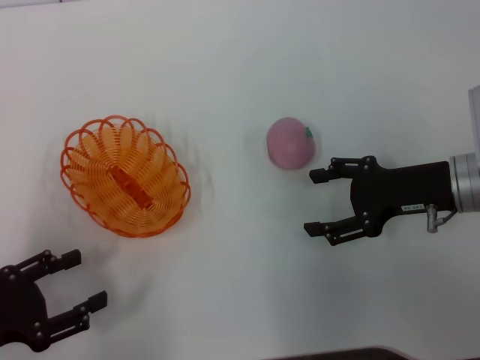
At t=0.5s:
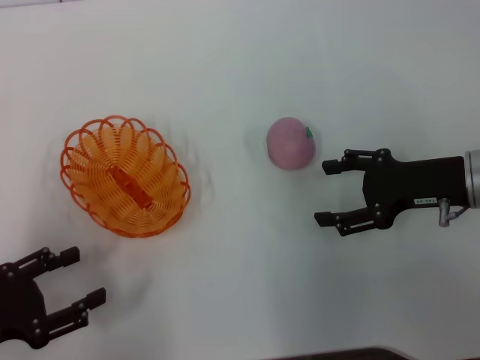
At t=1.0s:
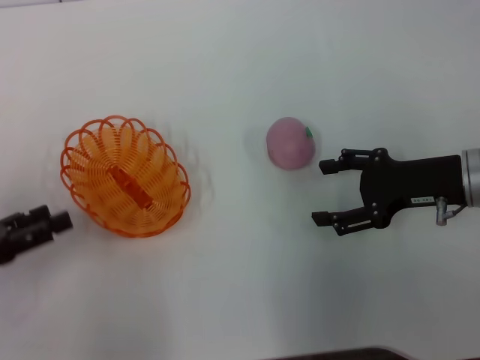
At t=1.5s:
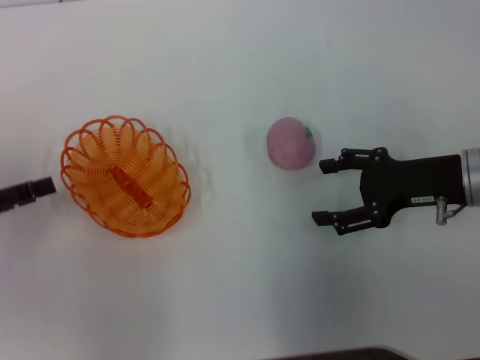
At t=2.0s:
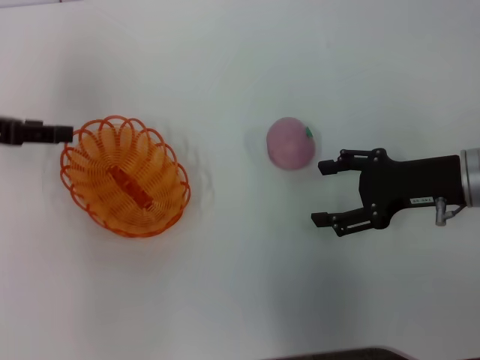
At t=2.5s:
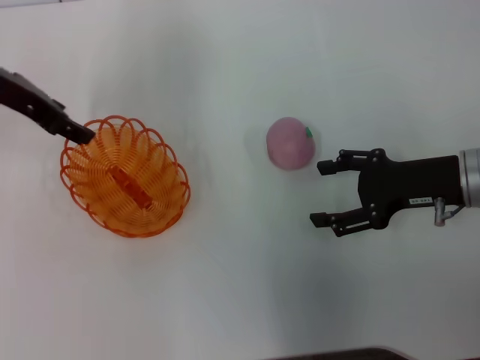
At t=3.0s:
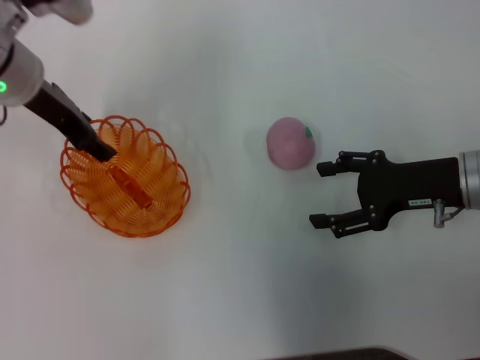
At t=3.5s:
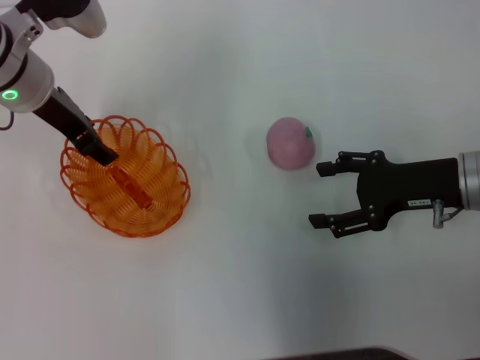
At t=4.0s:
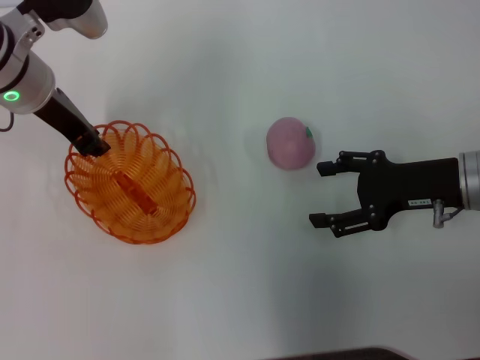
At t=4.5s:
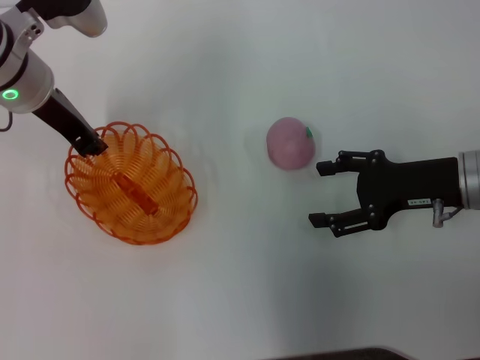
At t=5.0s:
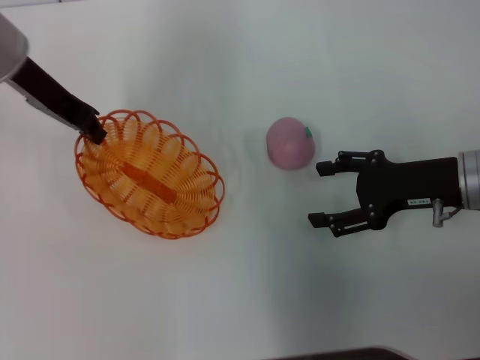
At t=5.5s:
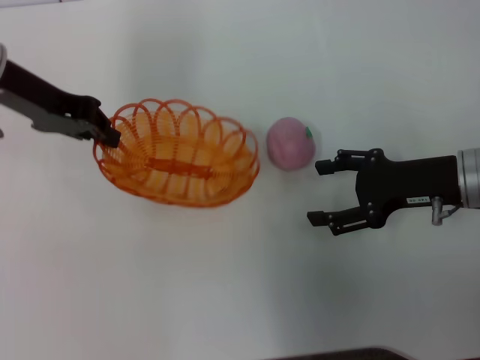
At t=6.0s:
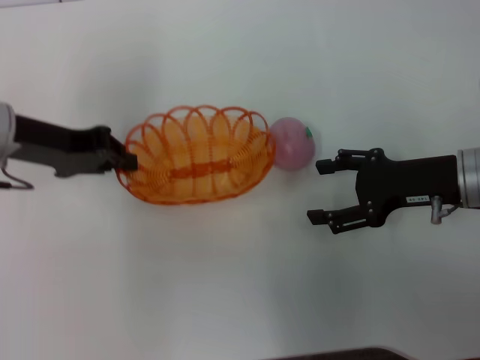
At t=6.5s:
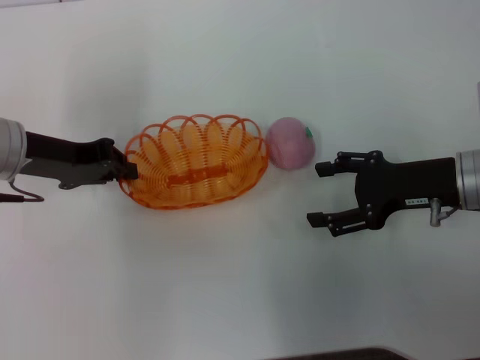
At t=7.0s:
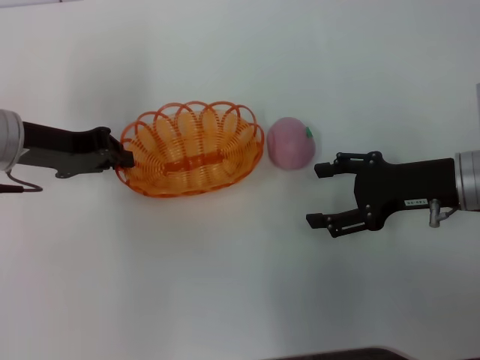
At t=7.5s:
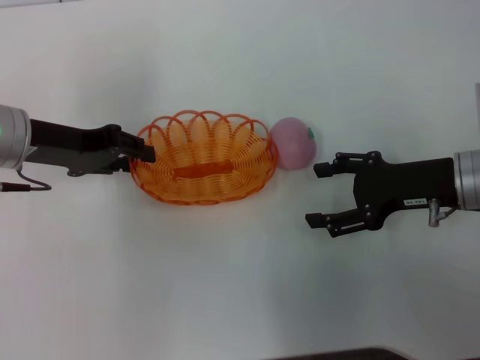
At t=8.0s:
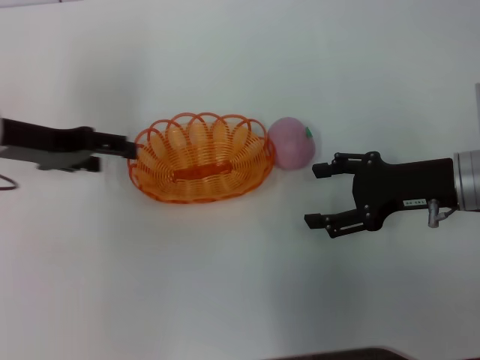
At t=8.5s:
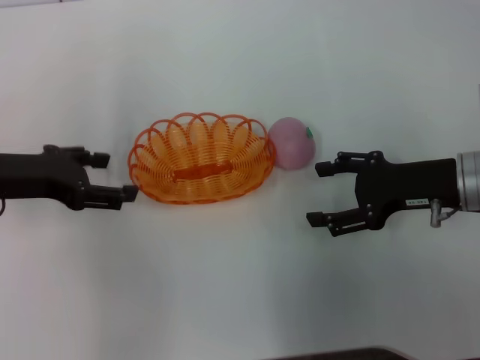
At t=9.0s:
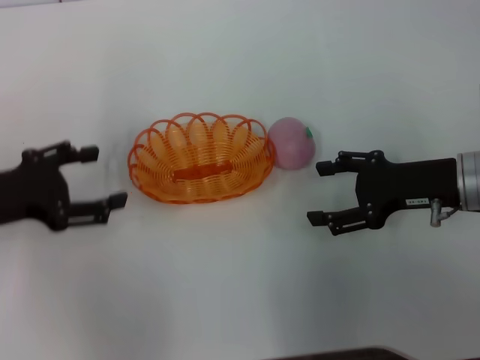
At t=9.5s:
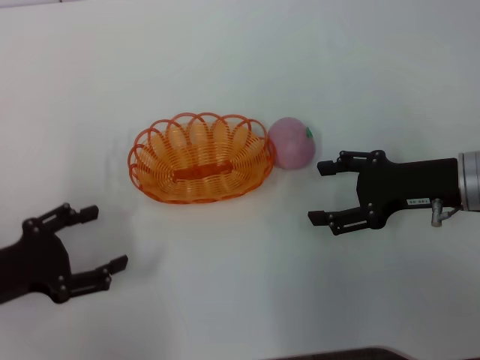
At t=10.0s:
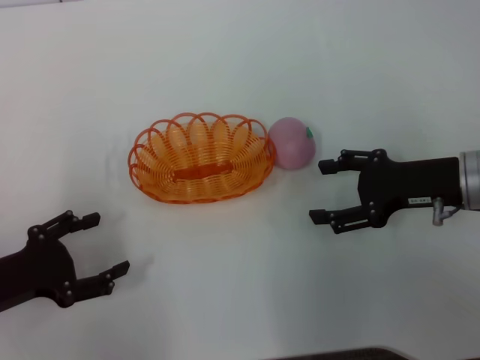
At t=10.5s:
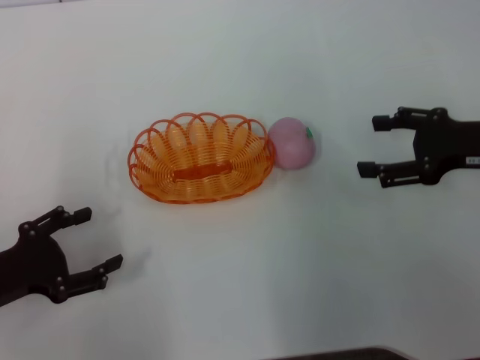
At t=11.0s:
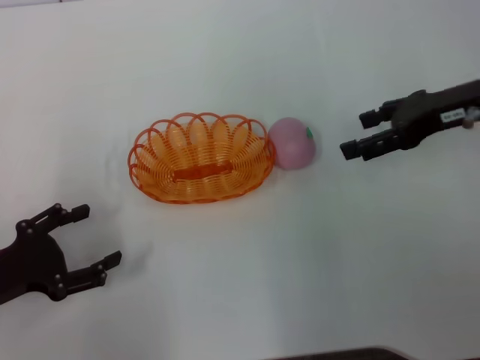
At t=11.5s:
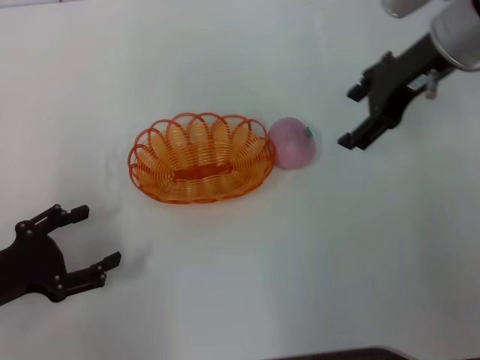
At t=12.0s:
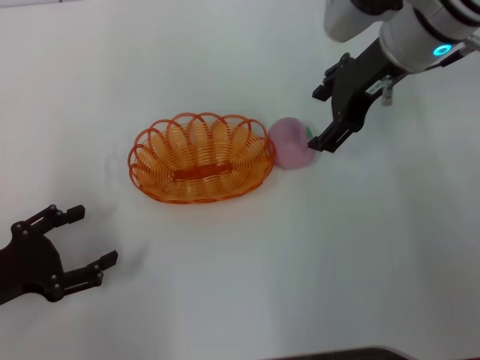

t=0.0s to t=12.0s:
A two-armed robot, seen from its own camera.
Step, t=0.0s to t=5.0s: Pick up the basket with the left gripper.
Step, t=5.5s to t=9.5s: Place the basket in the center of view with the left gripper.
t=0.0s to t=2.0s: The left gripper goes roughly 20 cm forward and upward.
t=2.0s to t=4.0s: The left gripper shifts some 15 cm to the right and forward.
t=4.0s to t=6.0s: The left gripper shifts some 5 cm to the left, and closes up.
t=6.0s to t=8.0s: The left gripper opens its fingers.
t=8.0s to t=10.0s: The left gripper travels backward and downward by approximately 15 cm.
t=10.0s to t=12.0s: The right gripper is displaced upward, forward and to the left by approximately 20 cm.

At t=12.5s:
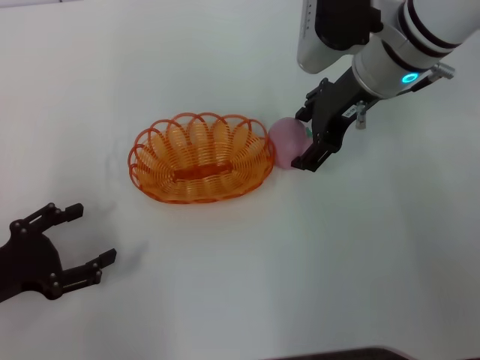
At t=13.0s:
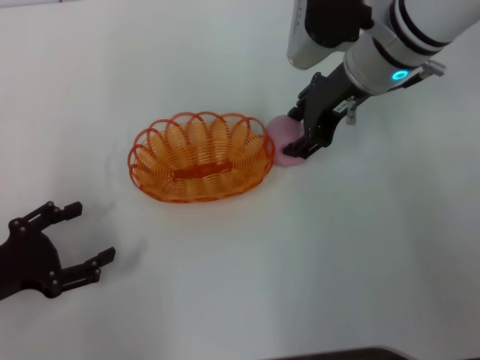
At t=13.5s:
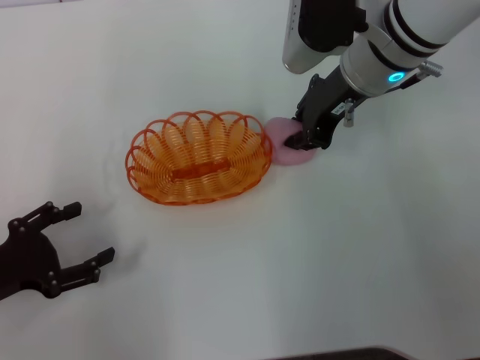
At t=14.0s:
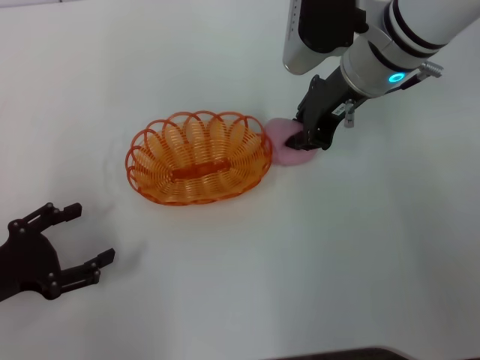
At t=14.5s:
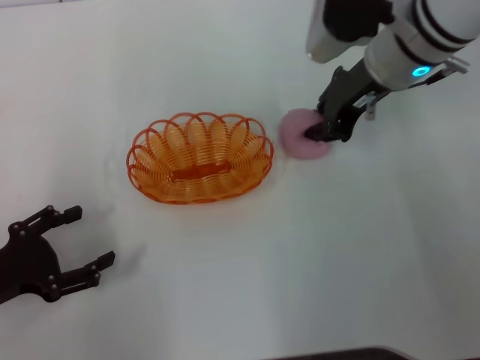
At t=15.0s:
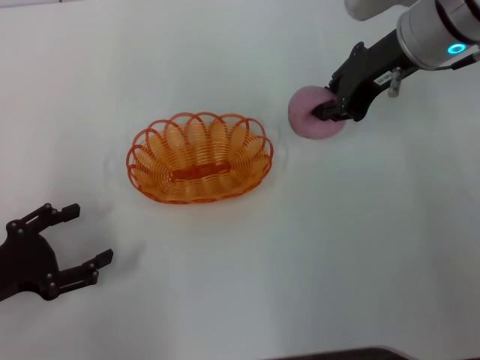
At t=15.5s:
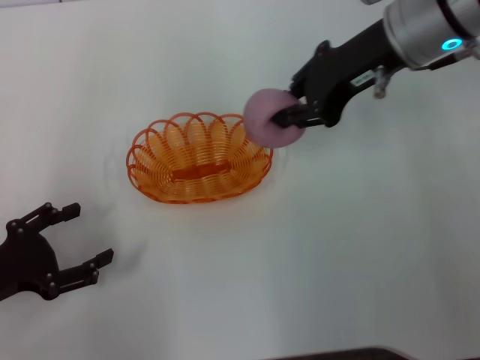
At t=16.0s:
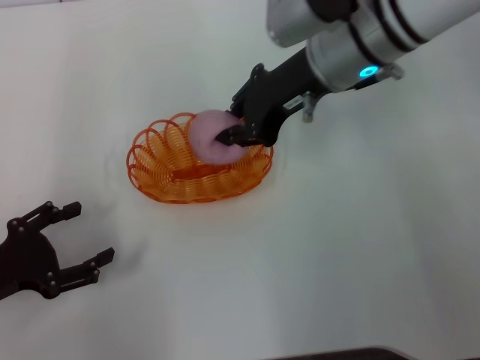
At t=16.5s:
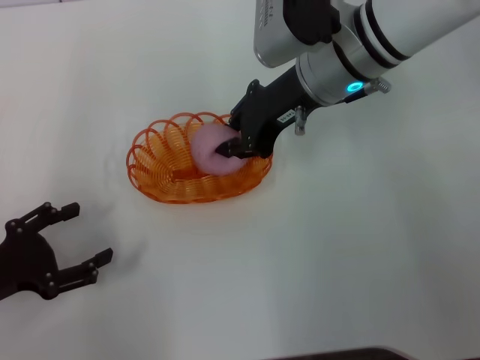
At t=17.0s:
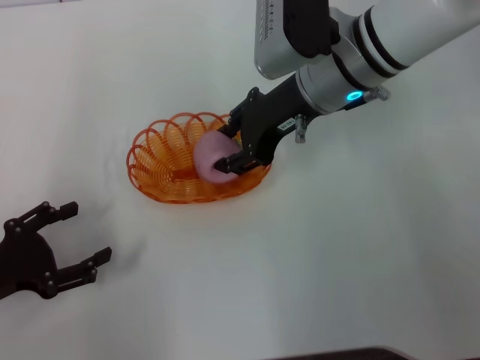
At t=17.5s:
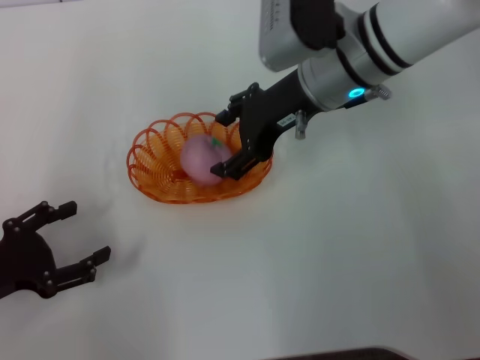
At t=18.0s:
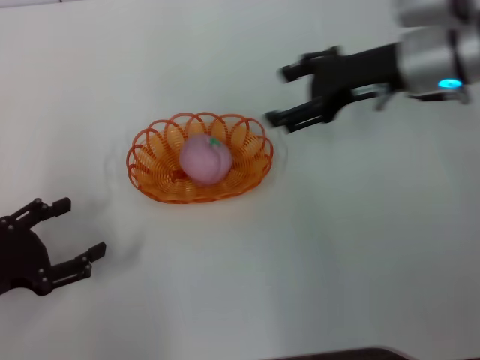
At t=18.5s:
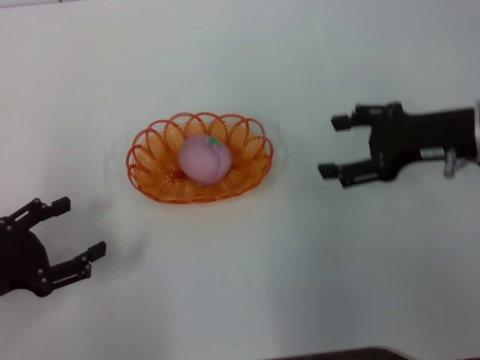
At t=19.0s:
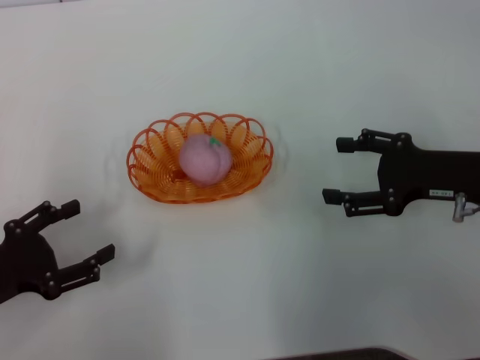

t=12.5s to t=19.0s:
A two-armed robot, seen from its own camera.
Step, t=12.5s to t=15.0s: Pick up the peach with the right gripper.
Step, t=15.5s to t=18.0s: Place the peach into the basket with the right gripper.
t=12.5s to t=14.5s: The right gripper closes its fingers.
t=14.5s to t=17.0s: The right gripper heads to the left, covering roughly 5 cm.
t=17.0s to t=19.0s: The right gripper heads to the right, backward and downward, covering some 20 cm, and opens up.

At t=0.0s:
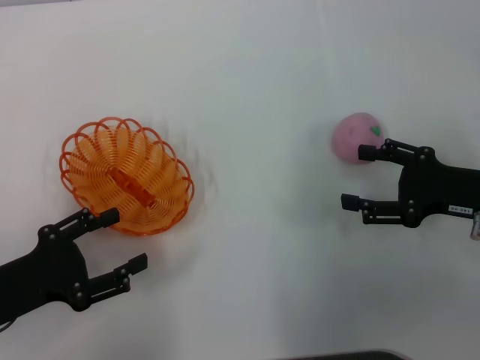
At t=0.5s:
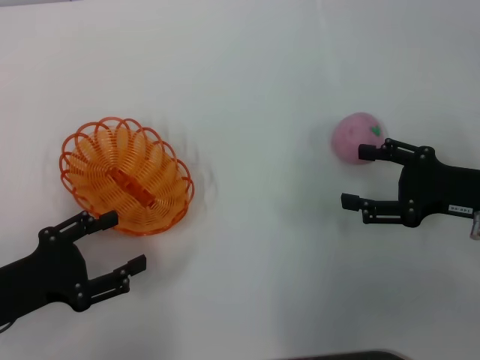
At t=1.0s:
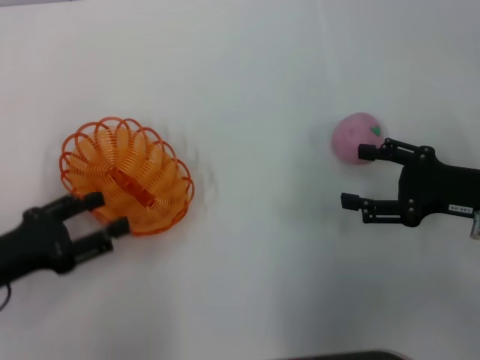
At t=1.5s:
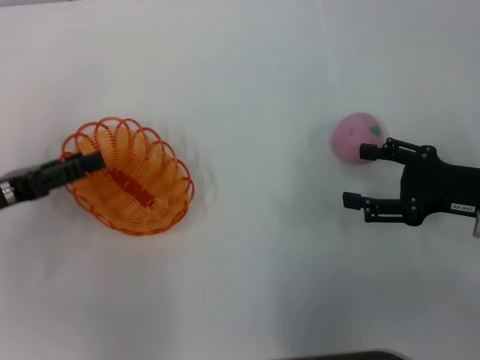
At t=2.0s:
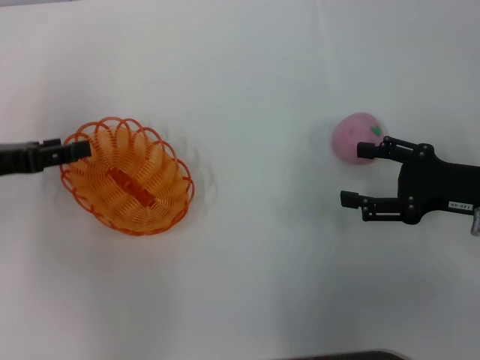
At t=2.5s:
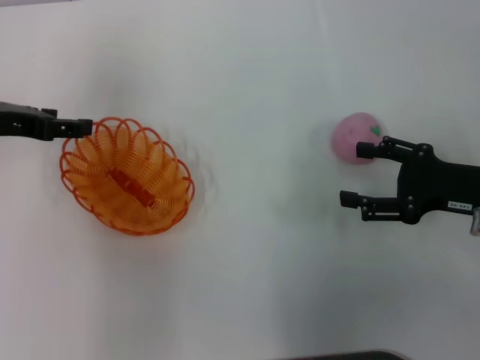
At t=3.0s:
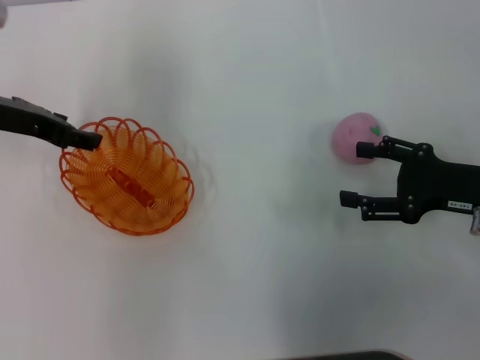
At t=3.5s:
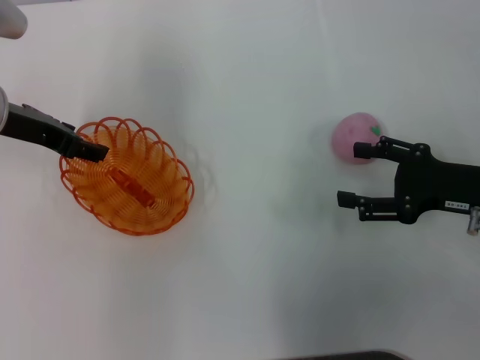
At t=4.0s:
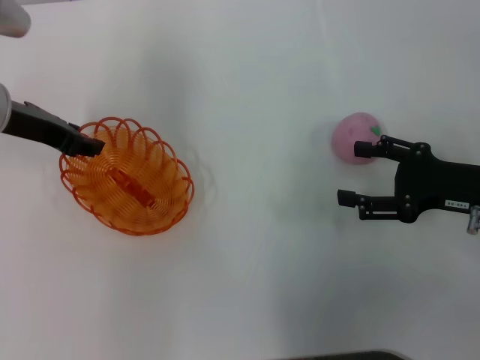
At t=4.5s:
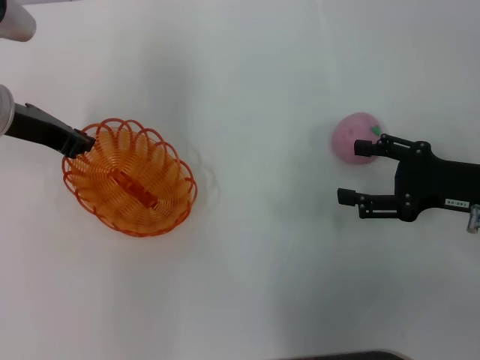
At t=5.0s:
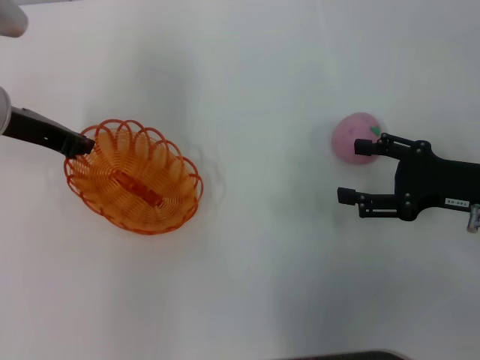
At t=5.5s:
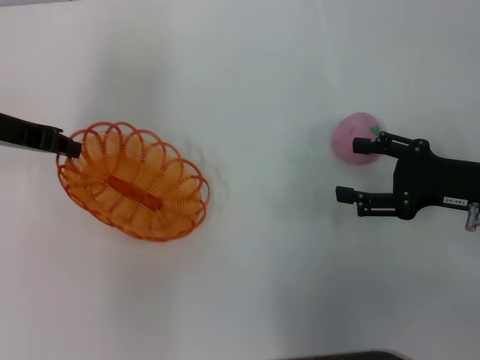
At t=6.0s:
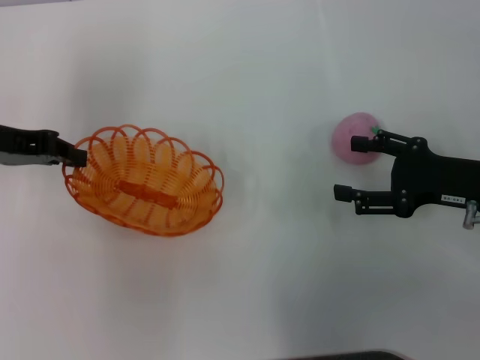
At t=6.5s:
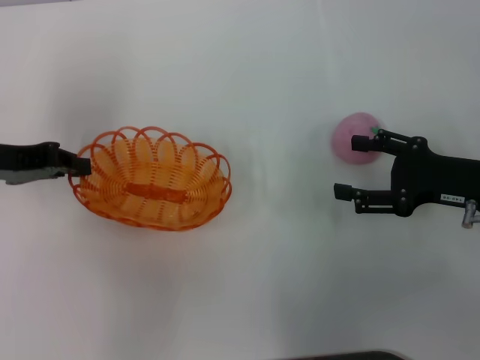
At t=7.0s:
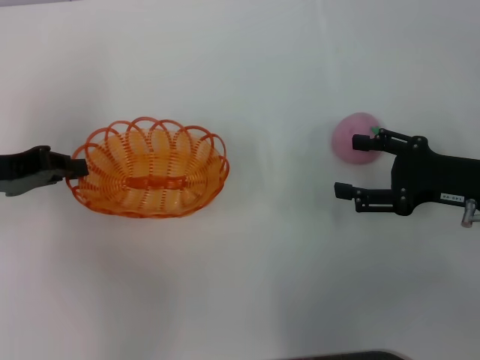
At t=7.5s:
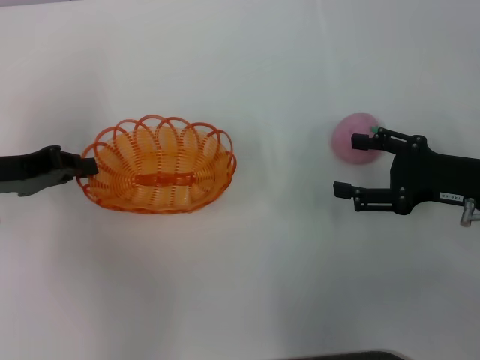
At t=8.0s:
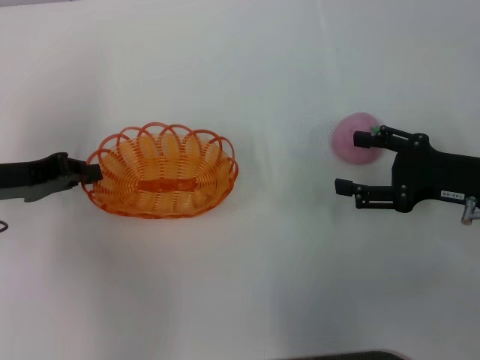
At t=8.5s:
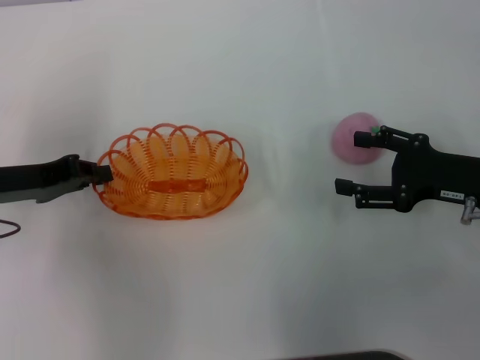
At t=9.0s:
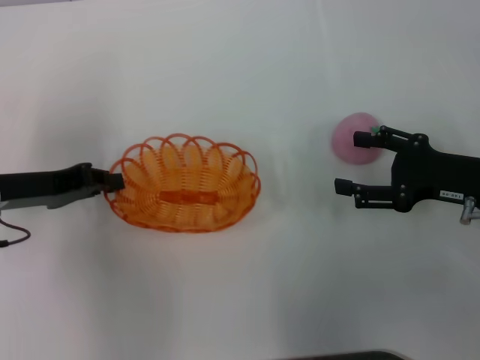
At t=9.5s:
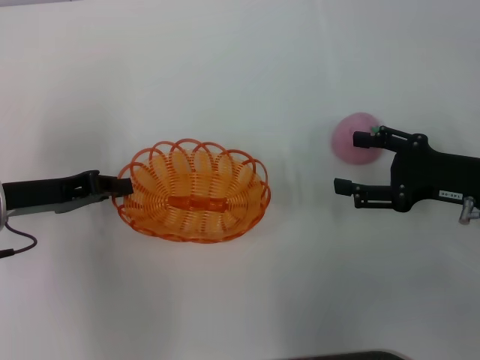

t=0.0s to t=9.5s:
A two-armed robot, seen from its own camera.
Step, t=0.0s to t=6.0s: Pick up the basket with the left gripper.
t=0.0s to t=2.0s: The left gripper travels forward and upward by some 15 cm.
t=2.0s to t=4.0s: The left gripper travels to the right and forward by about 10 cm.
t=4.0s to t=5.5s: The left gripper closes its fingers.
t=5.5s to t=7.5s: The left gripper heads backward and downward, covering roughly 10 cm.
t=7.5s to t=9.5s: The grippers make only small movements.
